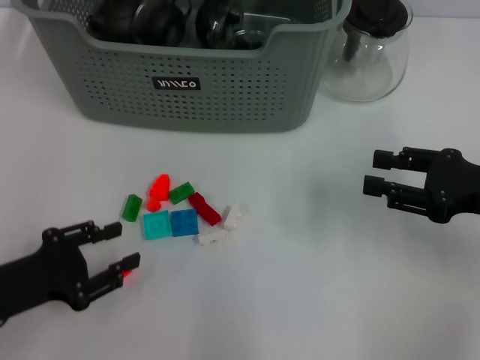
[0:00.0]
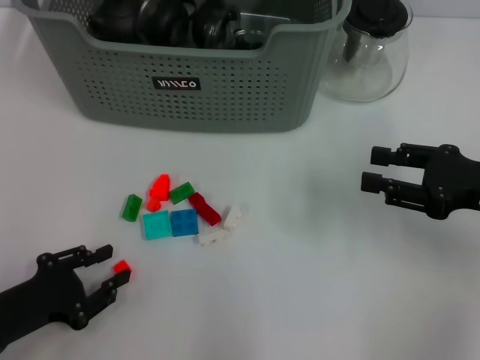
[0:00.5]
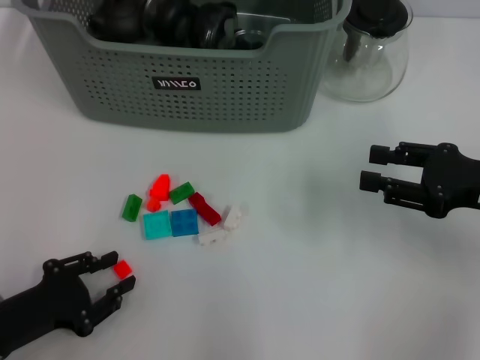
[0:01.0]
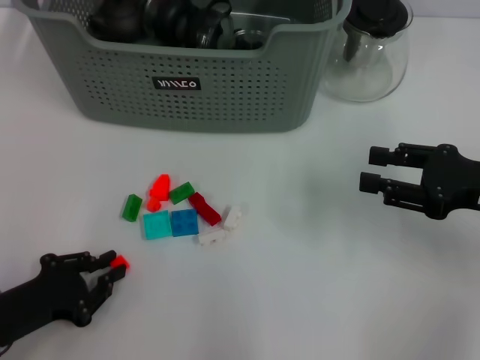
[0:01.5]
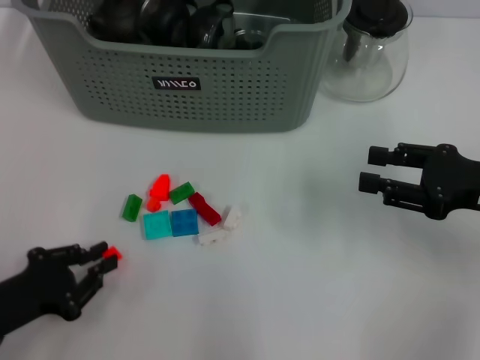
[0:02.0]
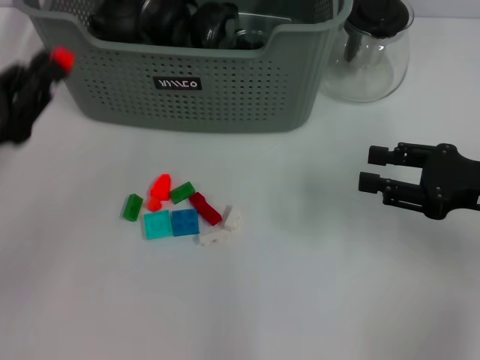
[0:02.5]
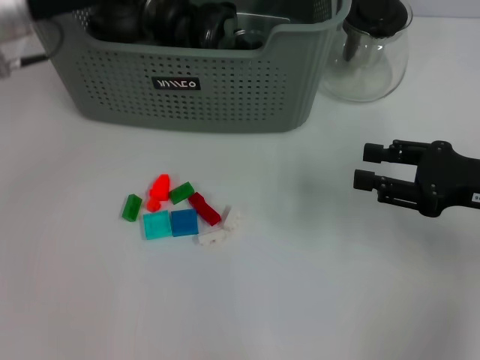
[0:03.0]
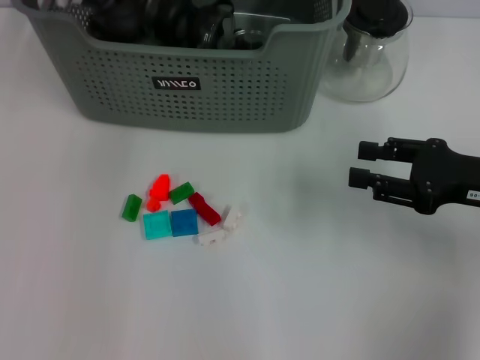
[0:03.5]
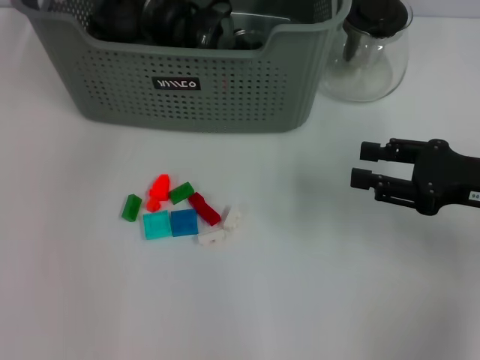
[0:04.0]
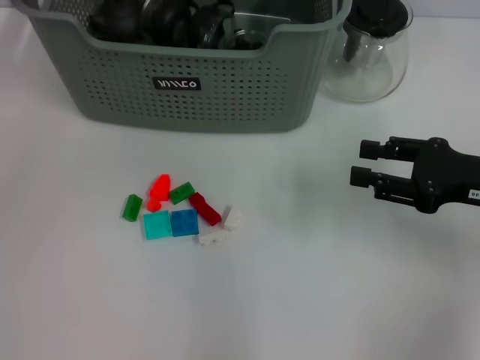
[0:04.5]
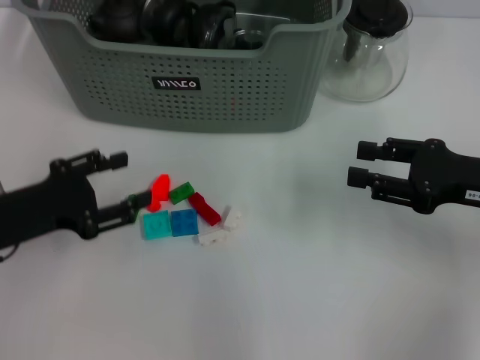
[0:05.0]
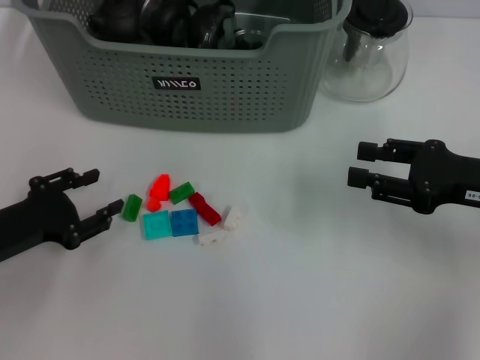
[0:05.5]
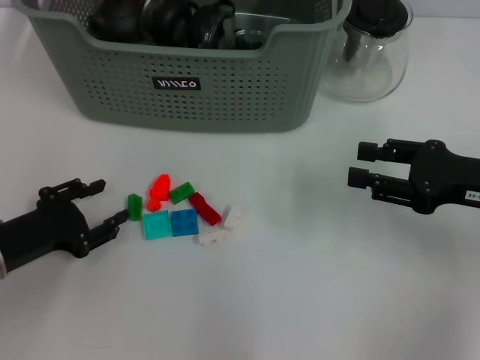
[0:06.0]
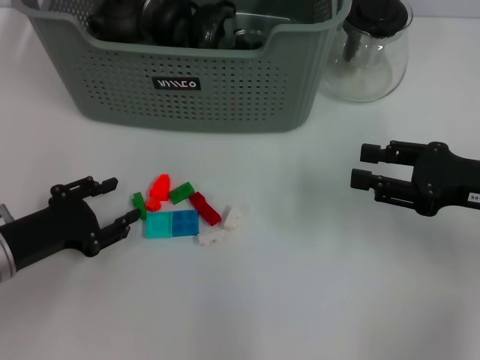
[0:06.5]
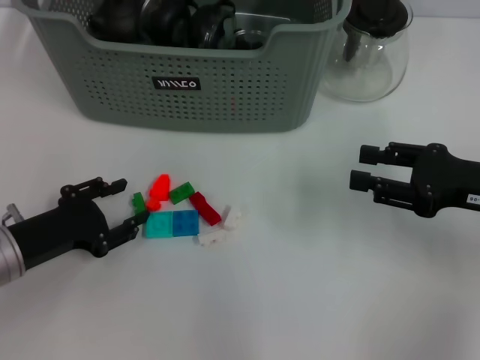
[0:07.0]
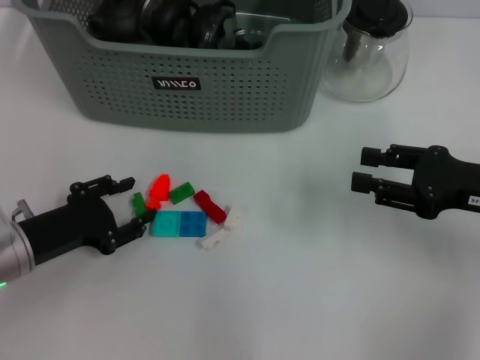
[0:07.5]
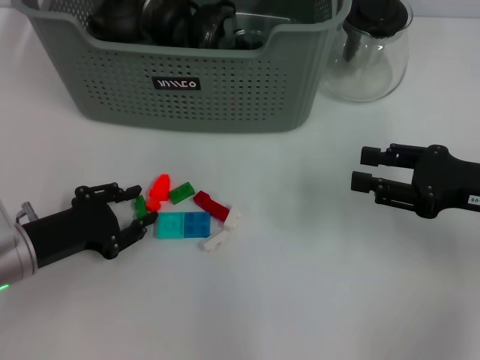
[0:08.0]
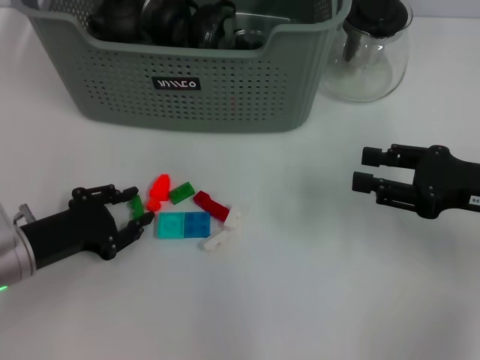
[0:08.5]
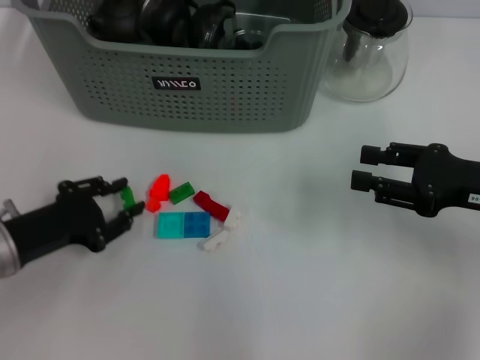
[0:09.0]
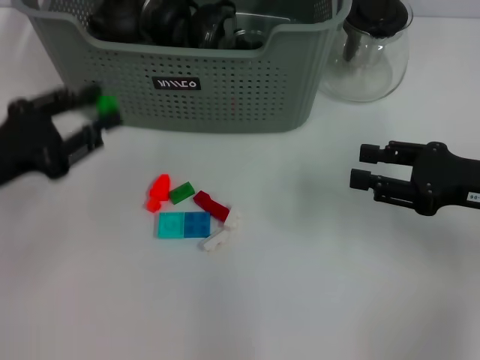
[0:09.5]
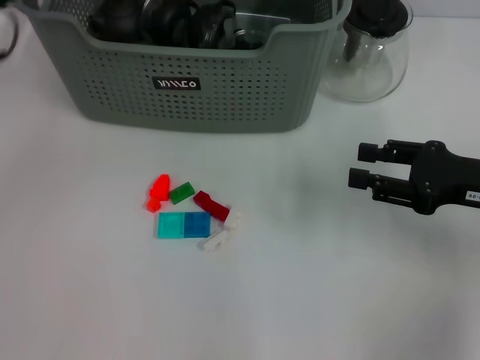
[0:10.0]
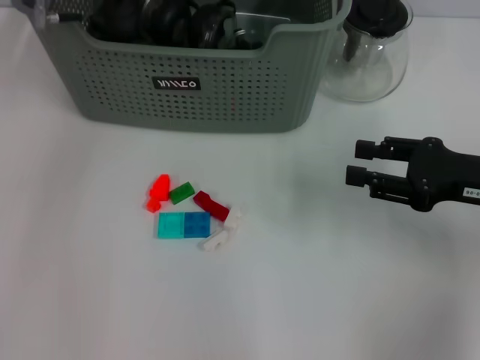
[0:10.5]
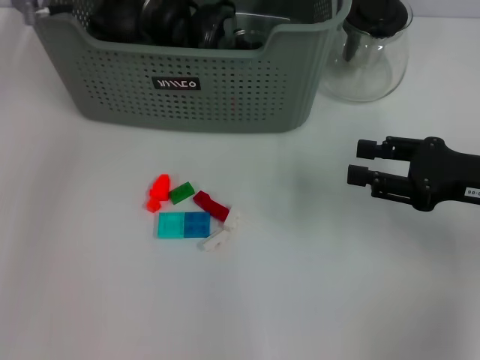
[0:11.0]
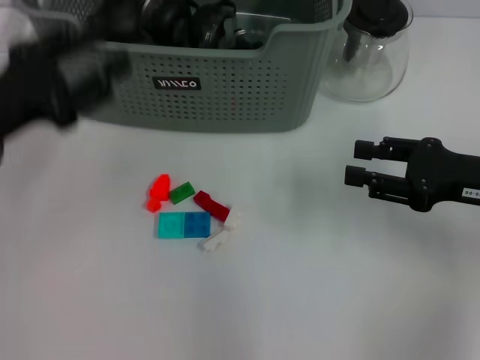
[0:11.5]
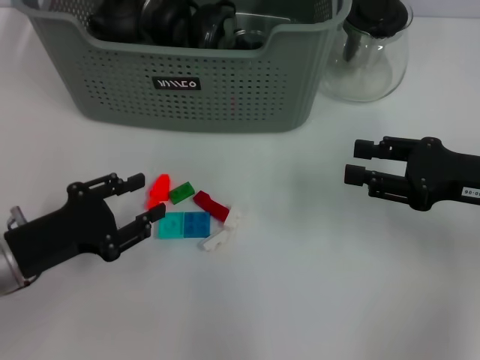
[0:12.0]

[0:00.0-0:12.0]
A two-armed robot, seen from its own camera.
Task of the whole recording: pick up the teacup on the table and place it into the storage bin, pick up the block on the table and place it into the storage bin.
Step, 0:02.0 to 0:03.5: Place the orange block in the storage box with left gripper.
Step, 0:04.0 to 0:08.0: Grasp the green block with left gripper.
Step, 0:08.5 to 0:10.5: Place the green block in the storage box with left gripper.
0:00.0 to 0:02.0: The left gripper closes.
0:02.0 to 0:04.0: The left gripper shifts approximately 40 cm forward, upward and to the right.
0:04.0 to 0:06.0: The left gripper shifts roughly 30 cm backward, downward and to the left.
0:06.0 to 0:08.0: The grippers stay close to where they were, moving slightly.
0:08.0 to 0:10.0: The left gripper is displaced upward and forward by about 20 cm.
0:10.0 to 0:12.0: The left gripper heads downward and backward, covering some 20 cm.

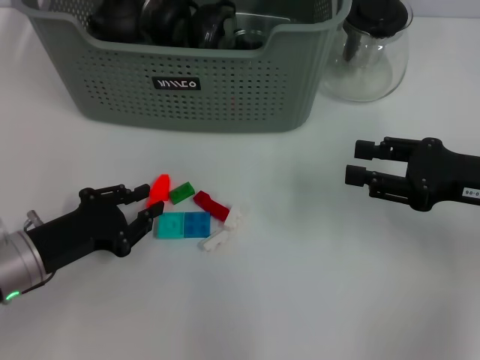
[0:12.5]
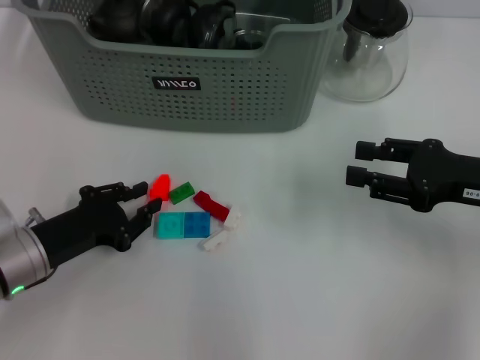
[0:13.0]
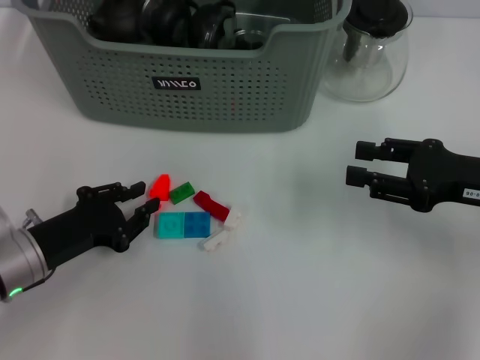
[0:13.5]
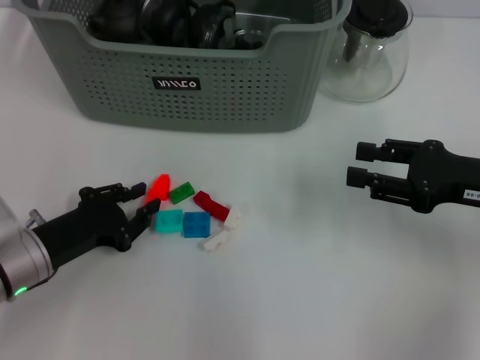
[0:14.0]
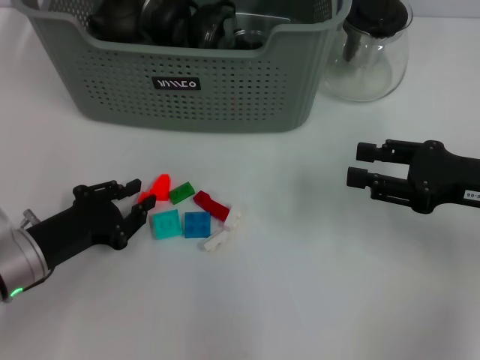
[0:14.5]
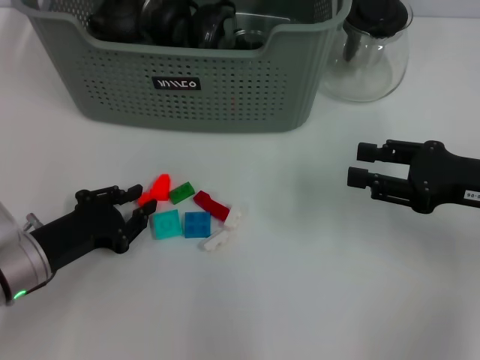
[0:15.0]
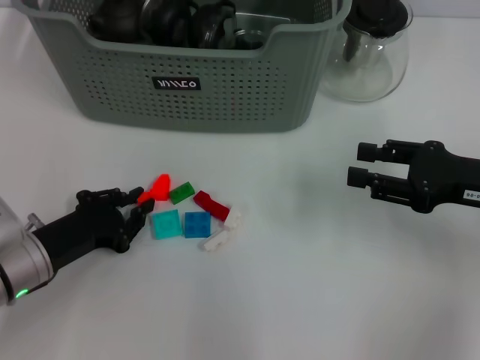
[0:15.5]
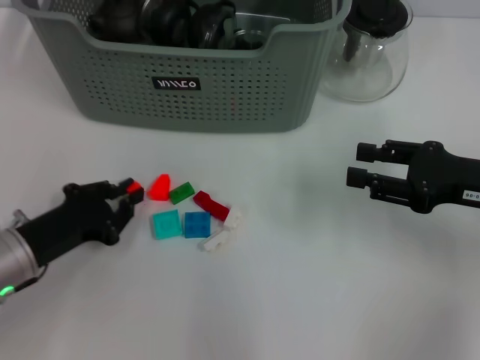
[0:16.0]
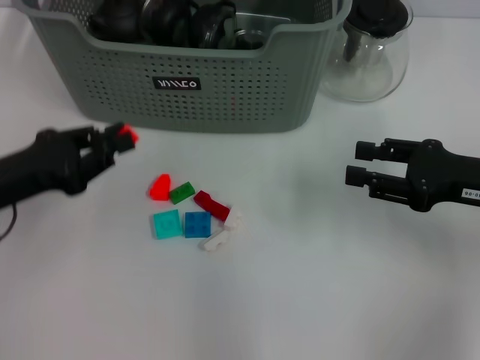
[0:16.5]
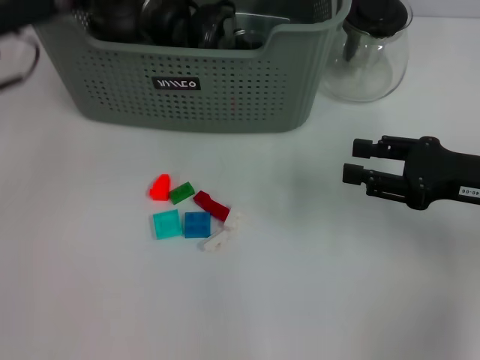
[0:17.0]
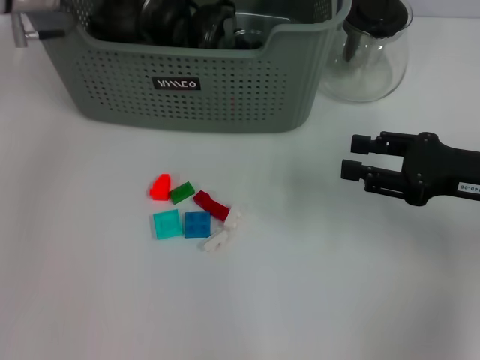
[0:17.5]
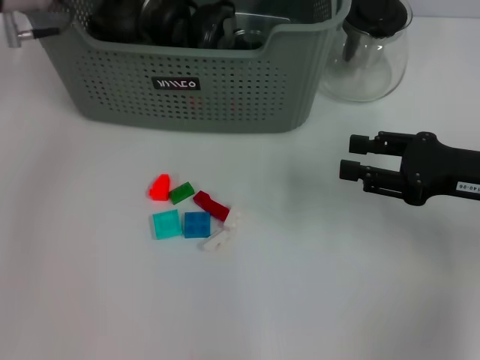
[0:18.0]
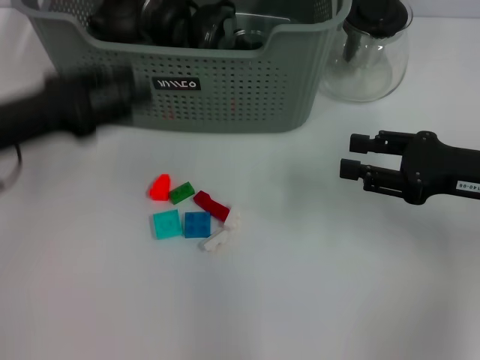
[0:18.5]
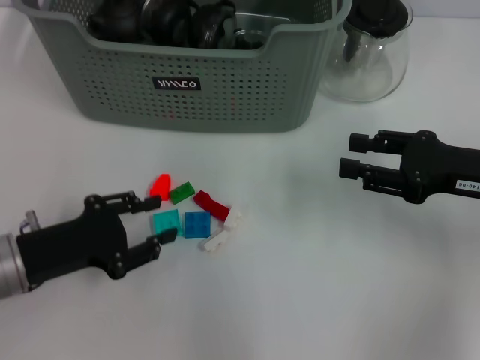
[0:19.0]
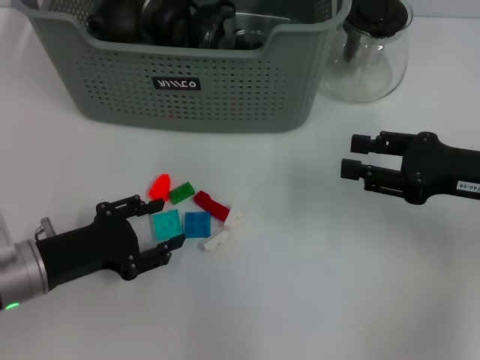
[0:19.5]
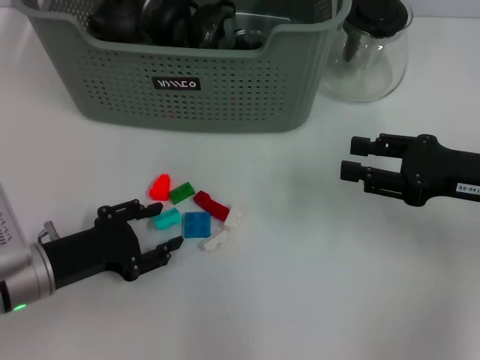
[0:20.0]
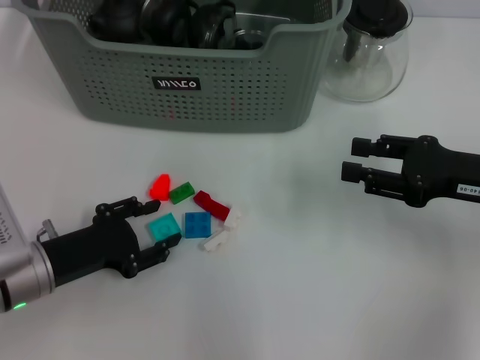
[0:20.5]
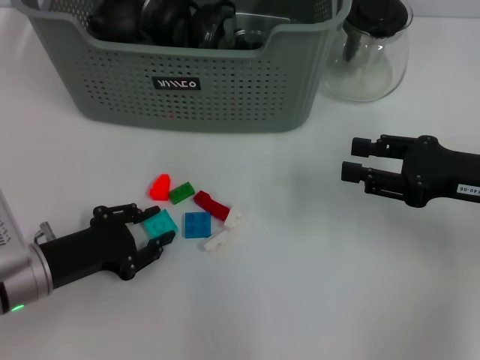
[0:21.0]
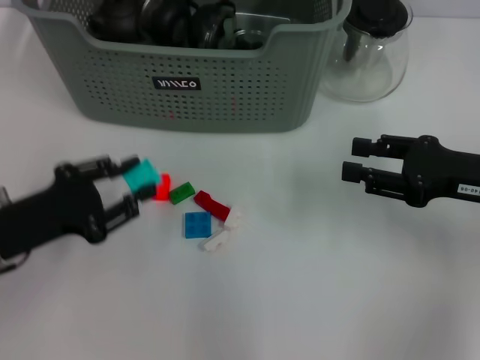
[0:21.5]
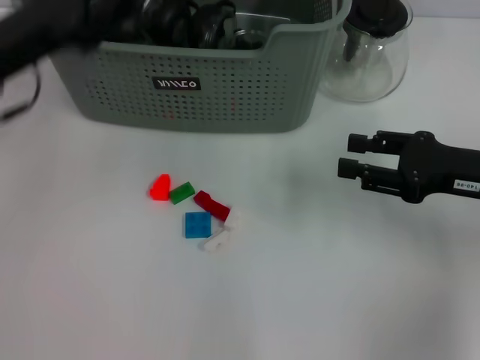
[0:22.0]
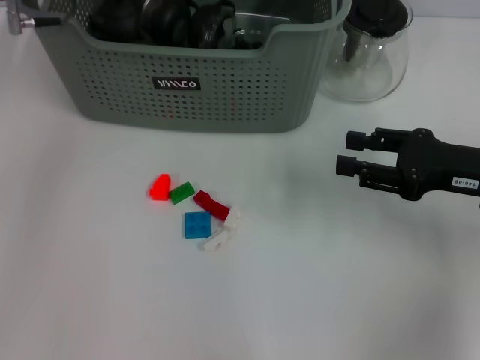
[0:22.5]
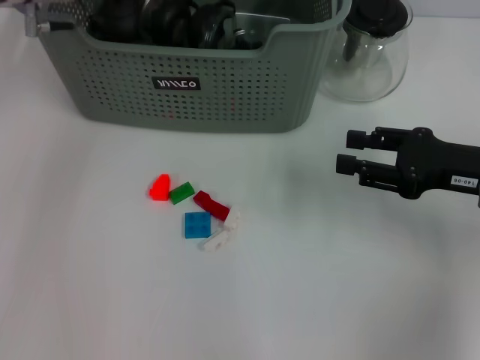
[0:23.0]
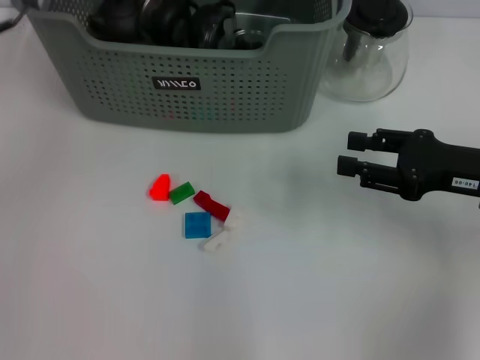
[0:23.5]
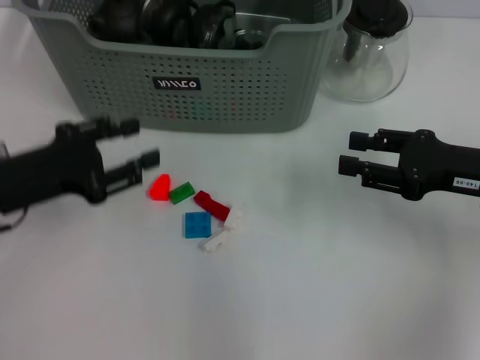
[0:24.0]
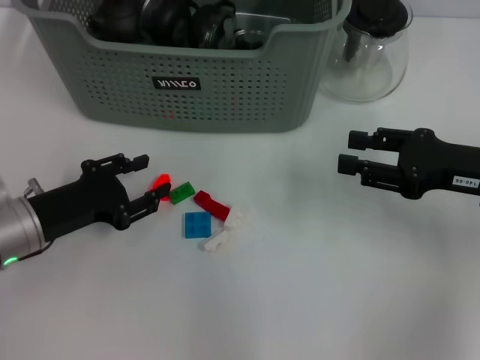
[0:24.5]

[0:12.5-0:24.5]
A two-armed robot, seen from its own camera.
Task of the whole recording: pick up the teacup on the table and place it into the storage bin, pick up the block on the table and place it into the storage bin.
Step, 0:12.5 to 0:15.5: Grasp the orange block with left gripper.
Step, 0:16.0 to 0:17.5: Place the orange block in the storage box with left gripper.
Step, 0:18.0 to 0:21.0: Grasp the light blue block with left gripper.
Step, 0:21.5 to 0:23.0: Place the light blue block in the storage box with left gripper.
0:12.5 to 0:14.5: The grippers make only small movements.
0:14.5 to 0:16.5: The left gripper goes approximately 10 cm upward.
0:16.5 to 0:18.5: The left gripper reaches approximately 20 cm forward, then returns, and opens its fingers.
0:18.5 to 0:20.5: The left gripper travels downward and backward by about 15 cm.
0:20.5 to 0:22.5: The left gripper is displaced forward and upward by about 30 cm.
0:22.5 to 0:24.5: The left gripper is displaced downward and backward by some 25 cm.

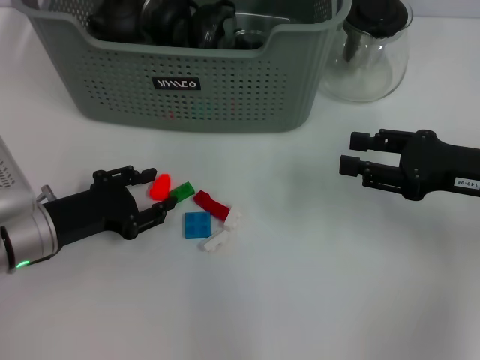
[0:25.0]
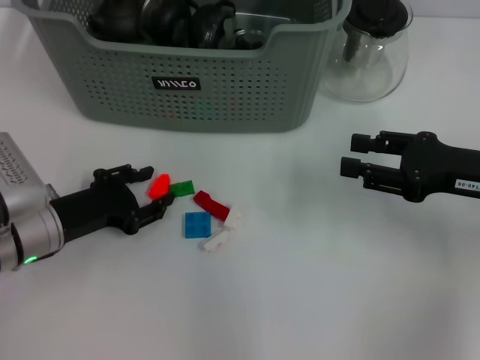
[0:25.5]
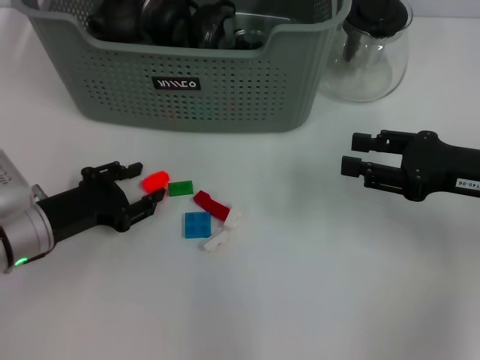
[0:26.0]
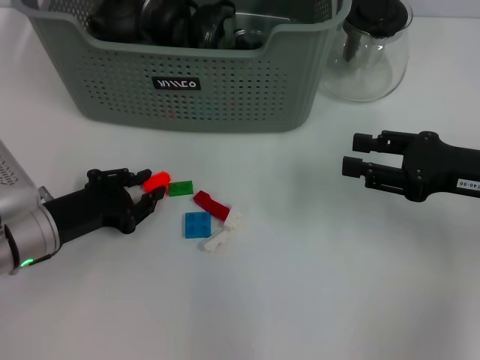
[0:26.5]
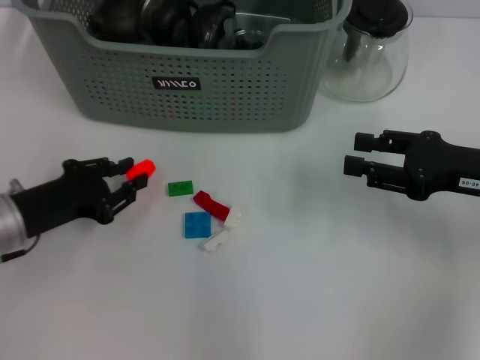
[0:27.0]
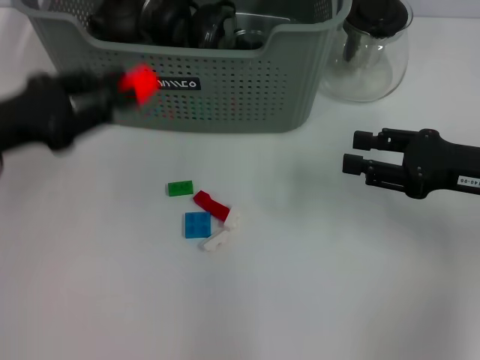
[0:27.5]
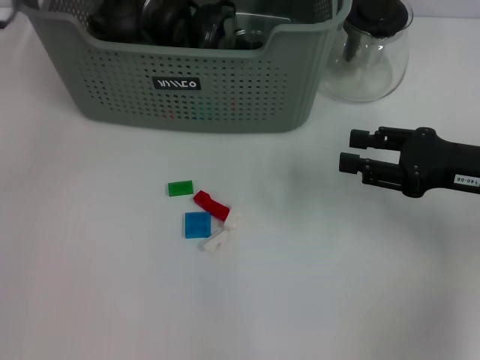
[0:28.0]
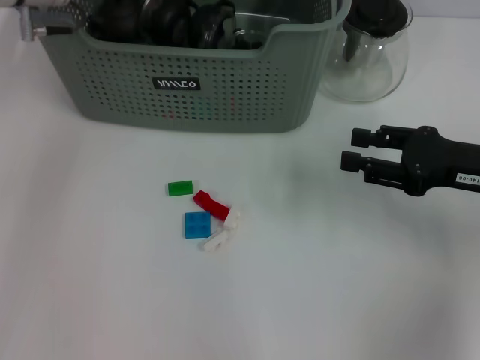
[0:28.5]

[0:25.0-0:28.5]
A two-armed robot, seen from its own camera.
Task of the whole recording: pick up the teacup on the table and place it into the storage bin, pick up the block on the table and place it into the storage bin.
0:25.0 to 0:27.0: The grippers move only a little.
0:27.0 to 0:28.5: The left gripper shifts about 25 cm forward and upward.
